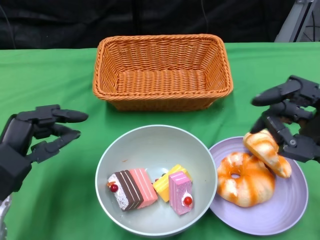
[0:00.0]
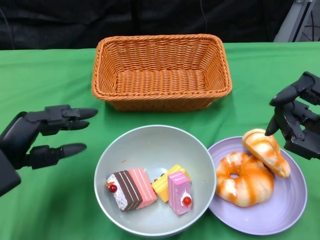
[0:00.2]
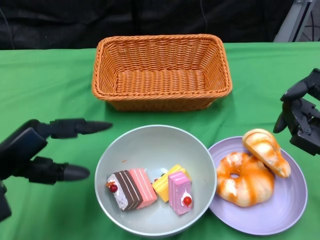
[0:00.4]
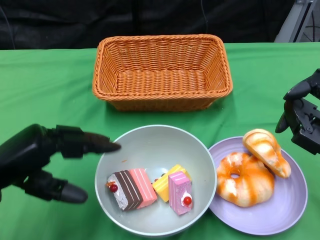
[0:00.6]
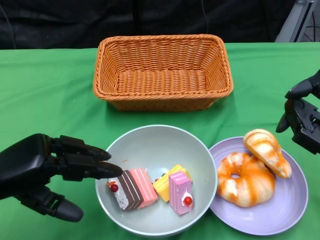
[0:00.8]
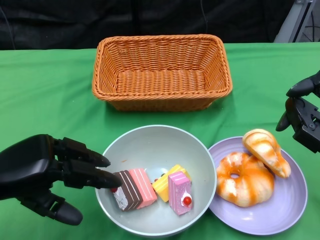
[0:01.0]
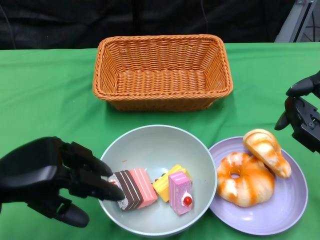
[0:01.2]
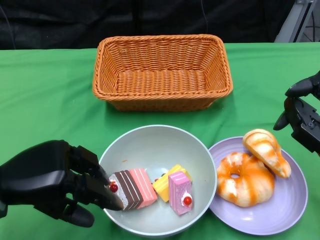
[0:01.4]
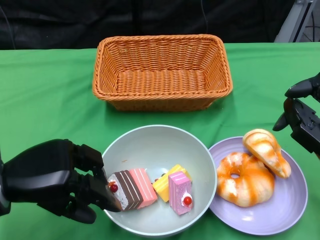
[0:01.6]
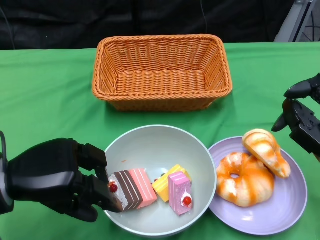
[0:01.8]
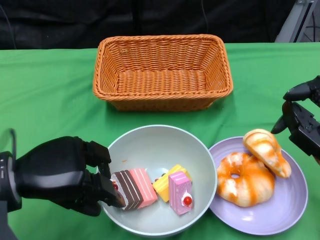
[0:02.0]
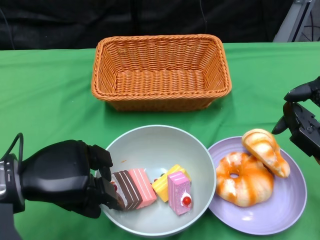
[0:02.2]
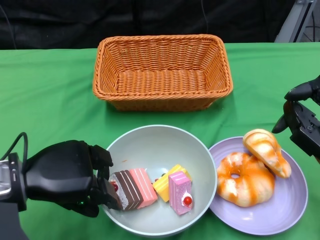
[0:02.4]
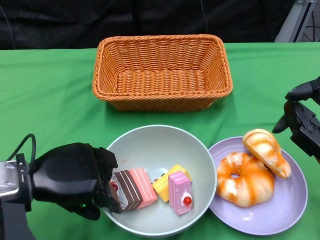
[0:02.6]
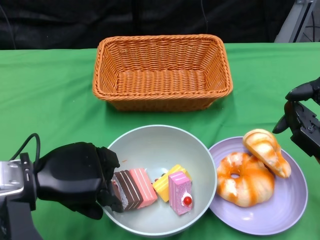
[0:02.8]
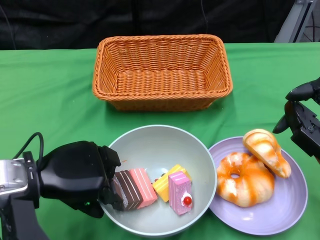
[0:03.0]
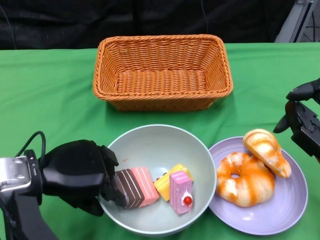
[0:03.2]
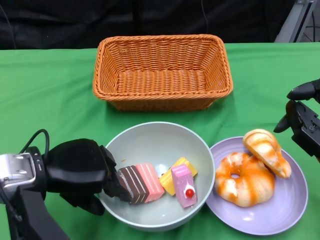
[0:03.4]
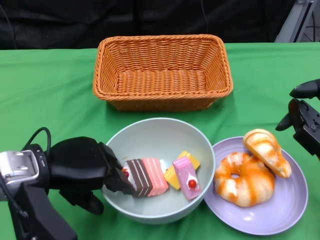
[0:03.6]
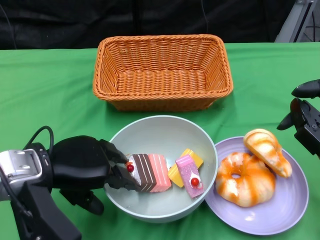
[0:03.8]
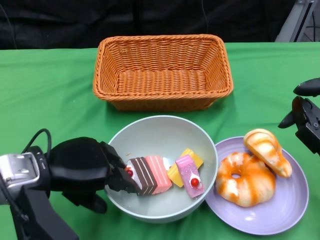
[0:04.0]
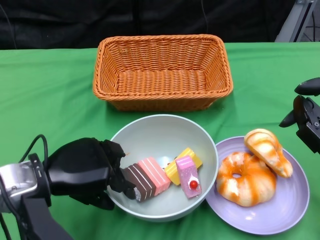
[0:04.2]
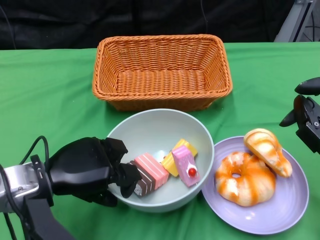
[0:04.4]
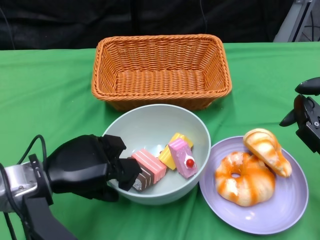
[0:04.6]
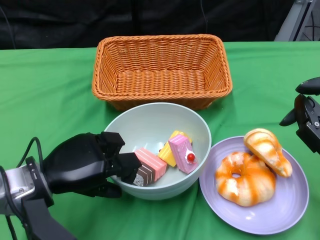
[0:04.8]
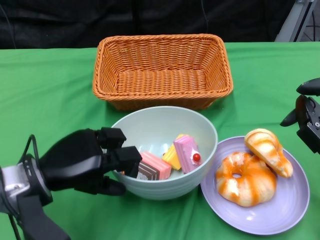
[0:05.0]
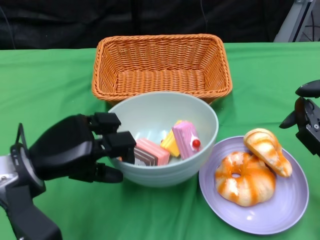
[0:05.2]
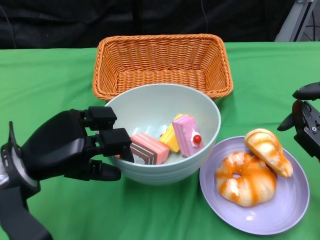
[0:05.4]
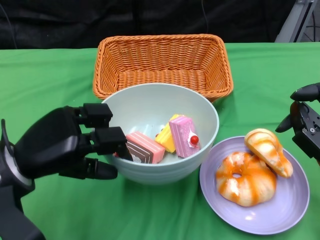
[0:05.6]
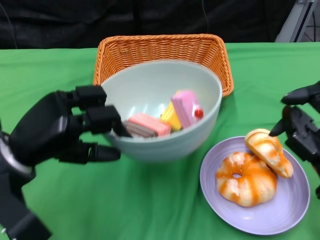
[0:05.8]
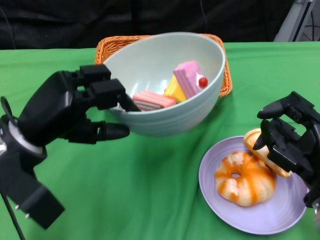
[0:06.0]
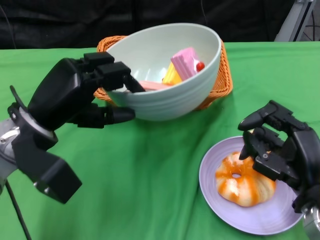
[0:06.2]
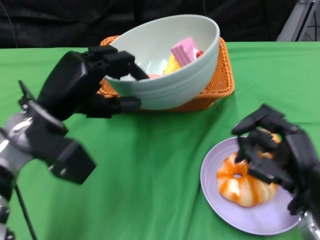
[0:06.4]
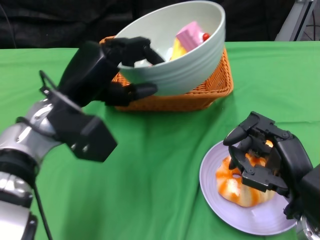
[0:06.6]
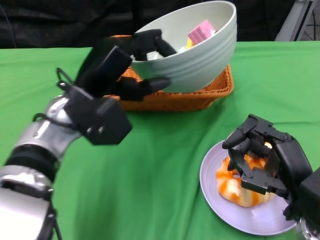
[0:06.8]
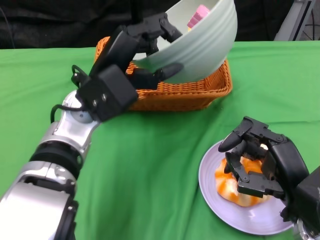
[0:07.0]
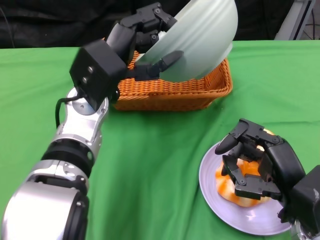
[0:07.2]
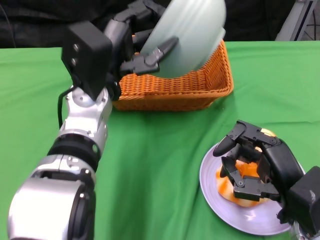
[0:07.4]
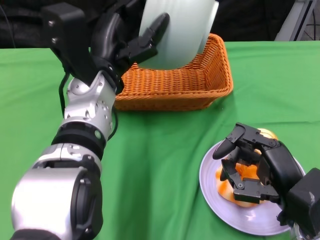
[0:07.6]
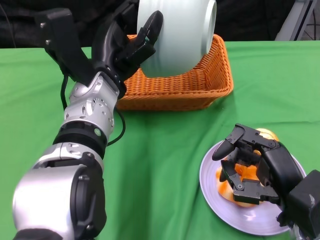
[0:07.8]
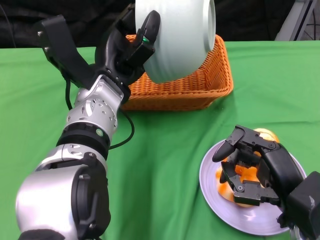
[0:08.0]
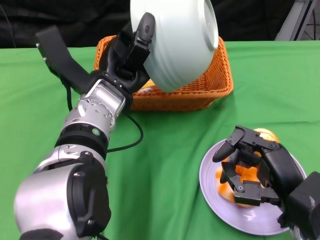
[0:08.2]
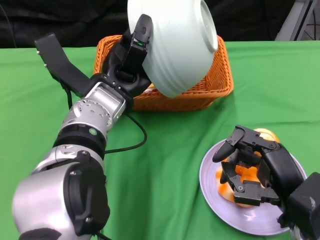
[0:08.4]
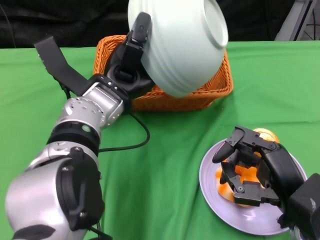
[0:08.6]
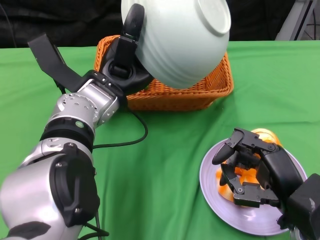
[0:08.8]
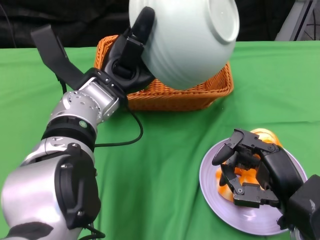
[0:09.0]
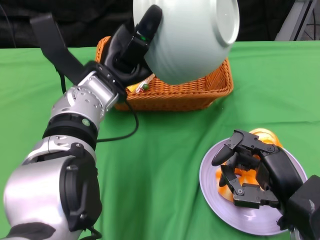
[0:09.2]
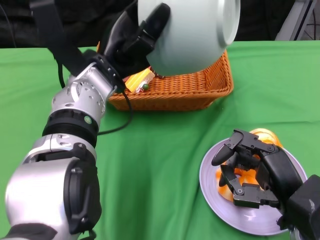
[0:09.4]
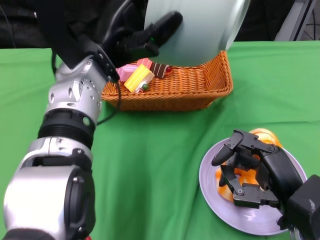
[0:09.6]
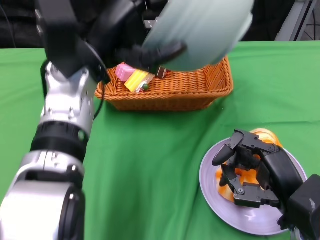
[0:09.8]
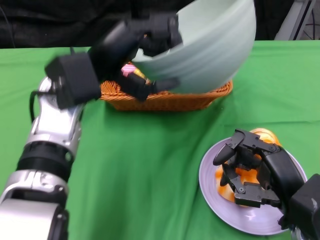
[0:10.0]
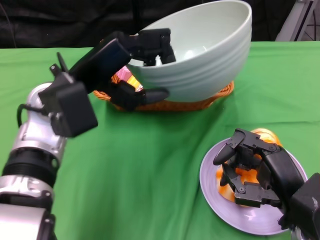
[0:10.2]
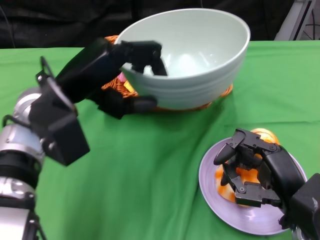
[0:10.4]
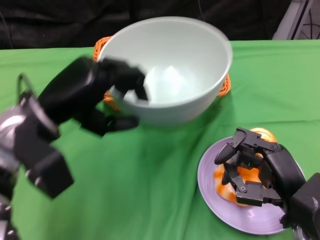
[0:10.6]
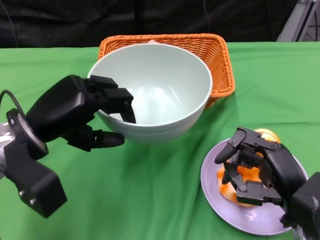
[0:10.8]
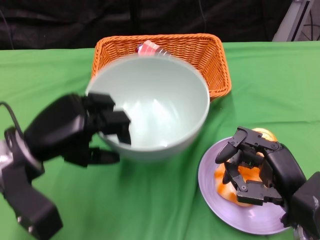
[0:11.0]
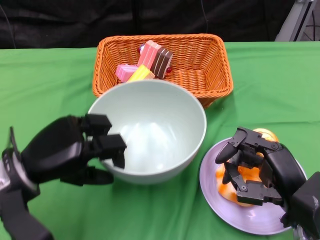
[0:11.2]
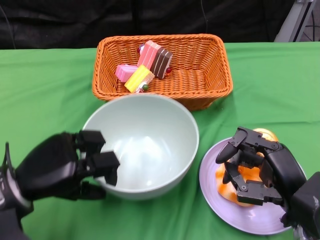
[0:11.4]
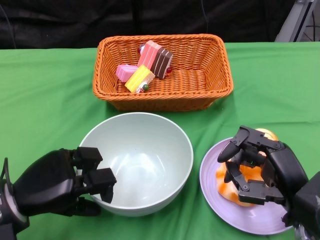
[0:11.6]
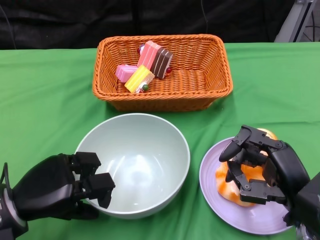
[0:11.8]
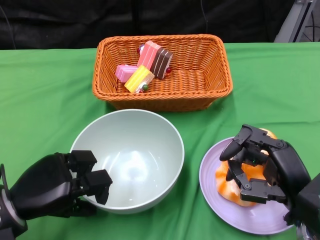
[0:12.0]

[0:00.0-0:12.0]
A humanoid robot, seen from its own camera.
Step, 0:00.0 to 0:04.4: Grasp the bowl with the left gripper.
Step, 0:04.6 to 0:09.8: Pour the cake into the basket with the left gripper.
0:00.0 to 0:01.6: The left hand goes roughly 5 cm upward.
0:01.6 to 0:03.0: The hands make only small movements.
0:04.4 to 0:06.0: The left hand moves upward, about 5 cm.
0:06.0 to 0:07.6: The left hand heads to the right and forward, covering roughly 15 cm.
0:09.0 to 0:10.4: The left hand goes roughly 5 cm to the left.
0:10.4 to 0:12.0: The left hand goes roughly 20 cm downward, backward and to the left.

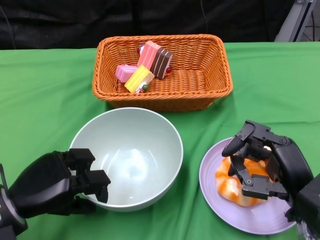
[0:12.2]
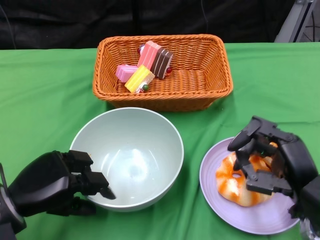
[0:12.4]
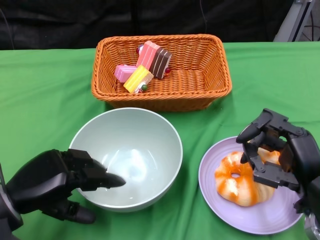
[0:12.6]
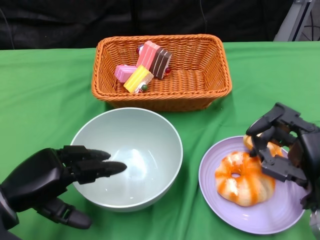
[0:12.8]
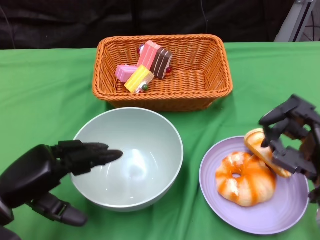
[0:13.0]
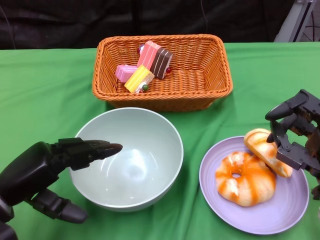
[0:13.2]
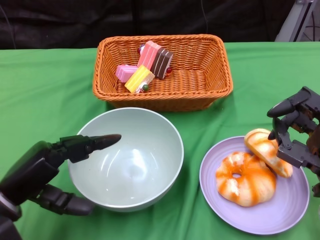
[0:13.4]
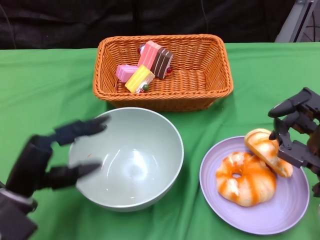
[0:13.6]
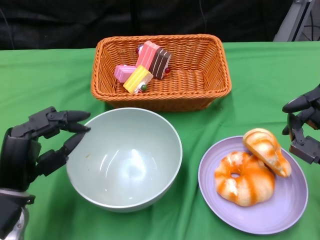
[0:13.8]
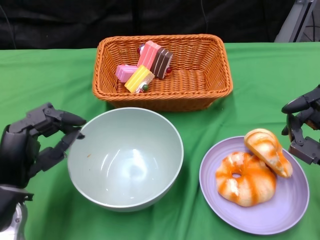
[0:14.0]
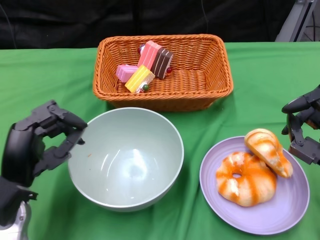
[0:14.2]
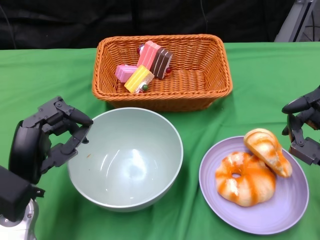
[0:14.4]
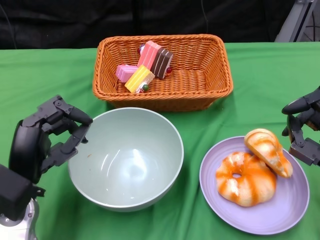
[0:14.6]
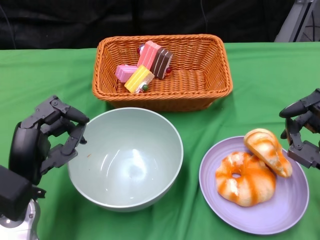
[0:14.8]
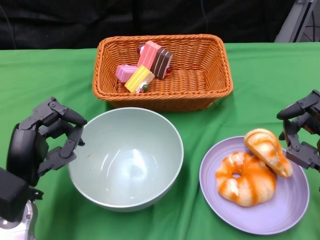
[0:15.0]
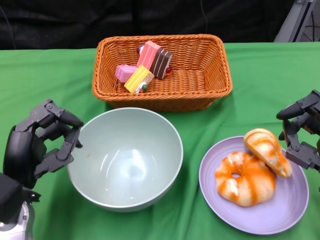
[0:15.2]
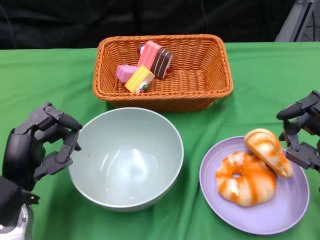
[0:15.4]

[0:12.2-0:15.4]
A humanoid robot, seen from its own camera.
0:13.8 to 0:15.4: The hands stay close to where they were, moving slightly.
